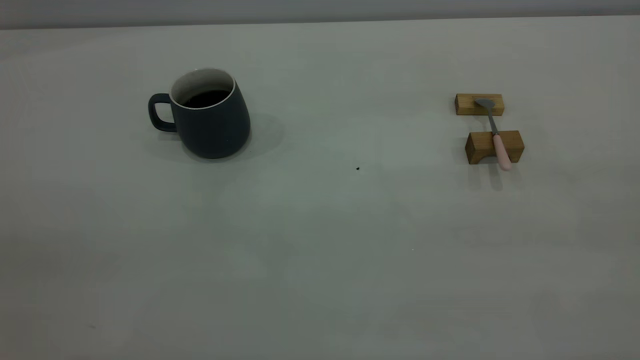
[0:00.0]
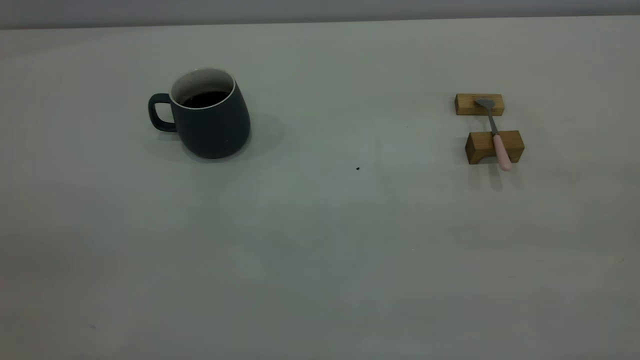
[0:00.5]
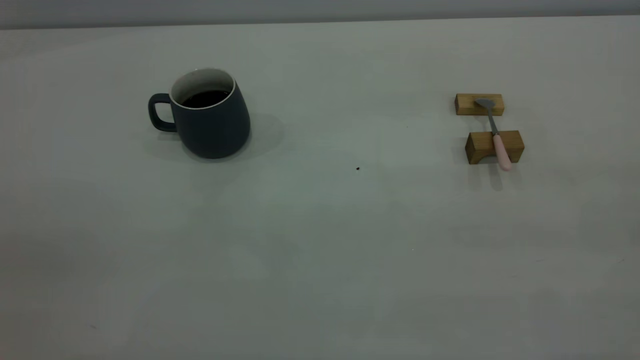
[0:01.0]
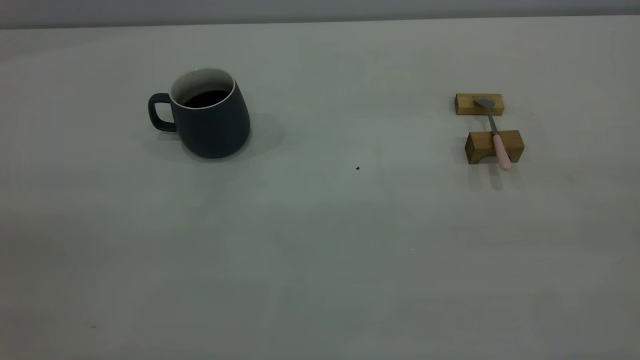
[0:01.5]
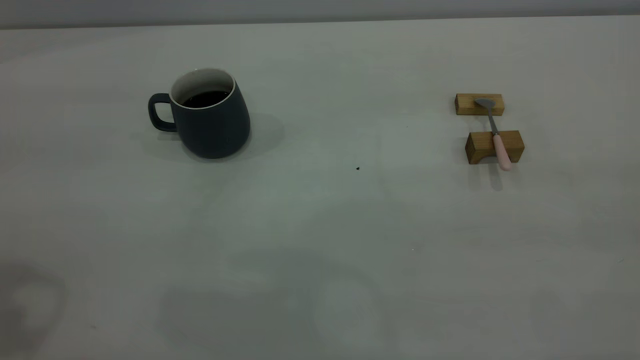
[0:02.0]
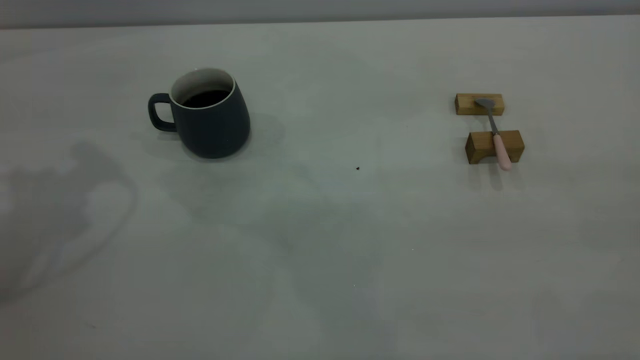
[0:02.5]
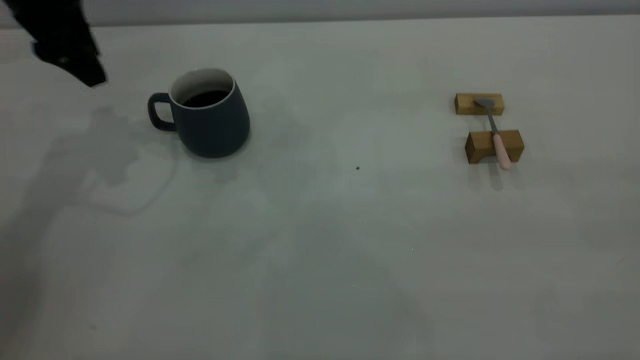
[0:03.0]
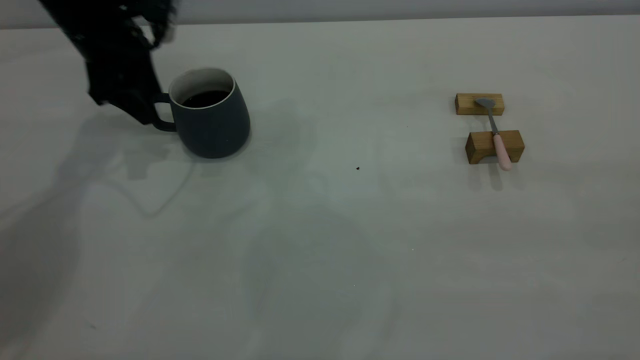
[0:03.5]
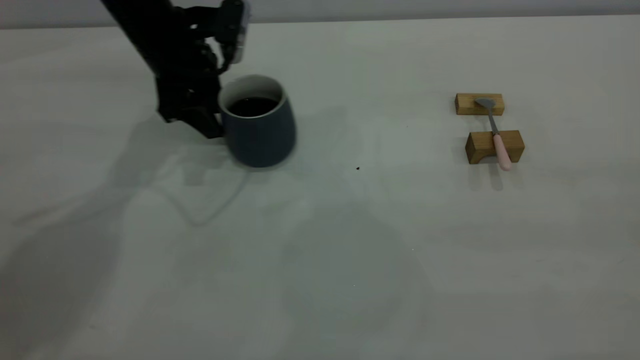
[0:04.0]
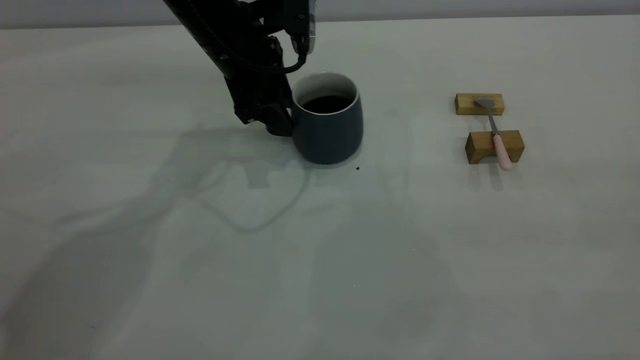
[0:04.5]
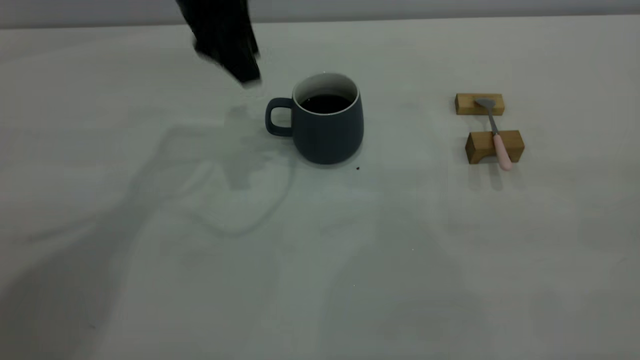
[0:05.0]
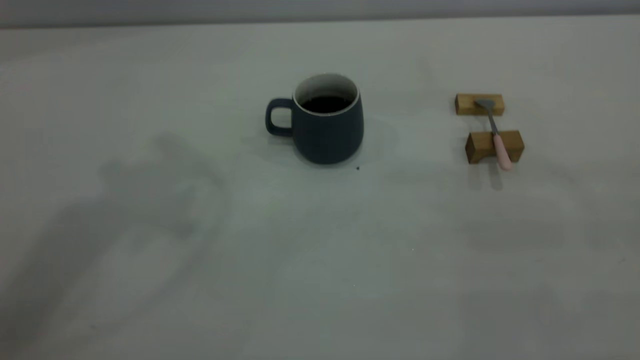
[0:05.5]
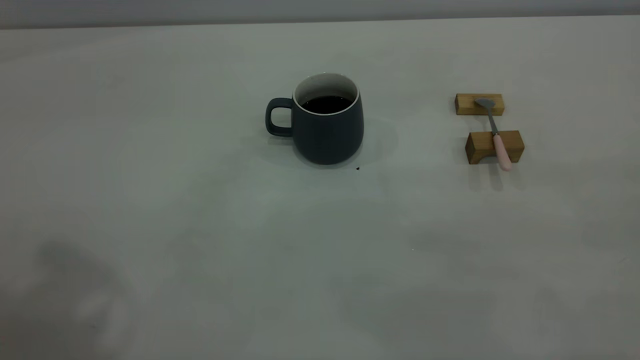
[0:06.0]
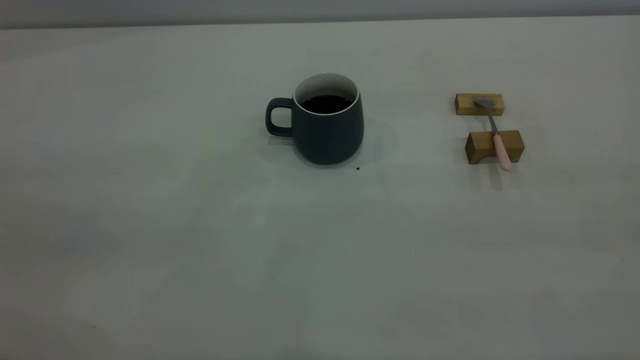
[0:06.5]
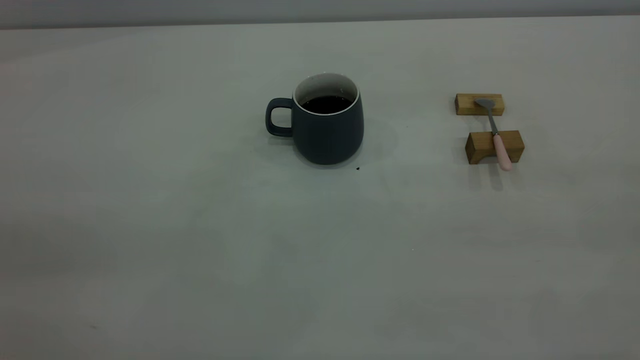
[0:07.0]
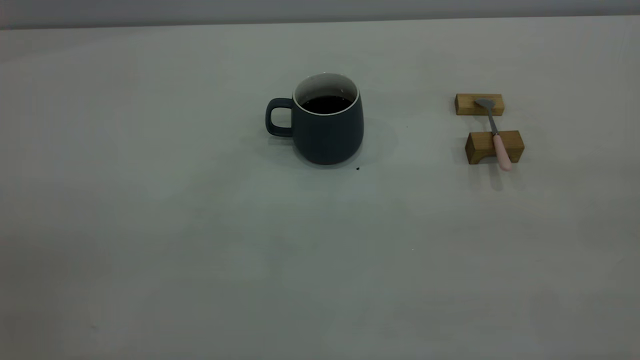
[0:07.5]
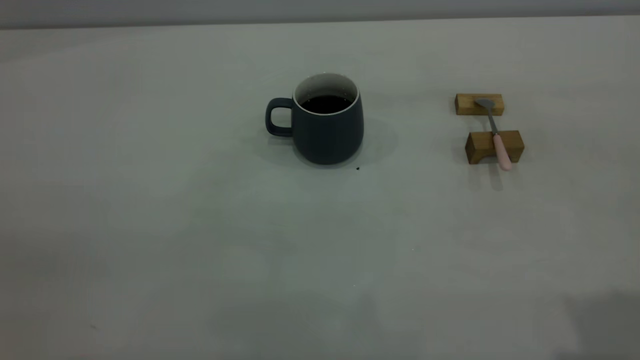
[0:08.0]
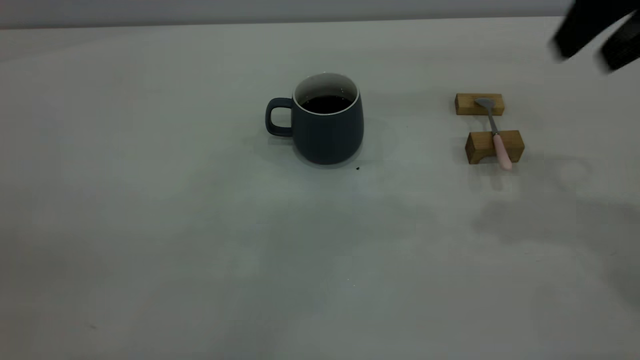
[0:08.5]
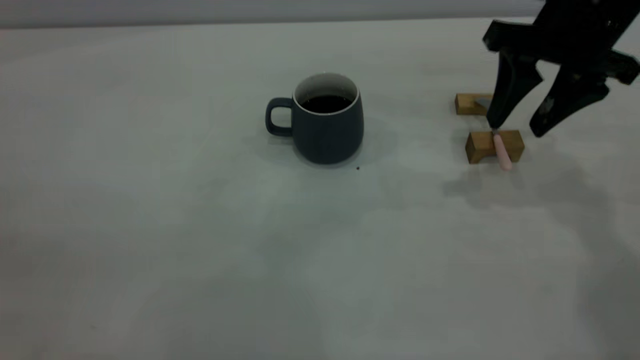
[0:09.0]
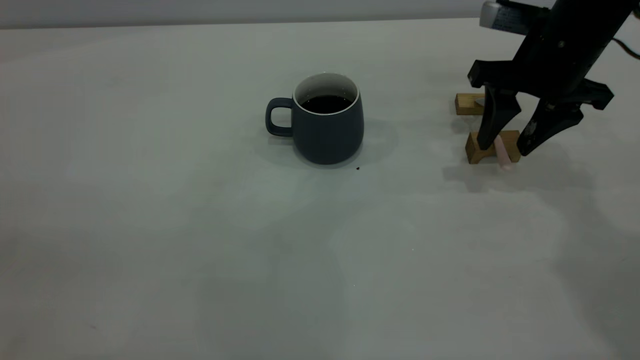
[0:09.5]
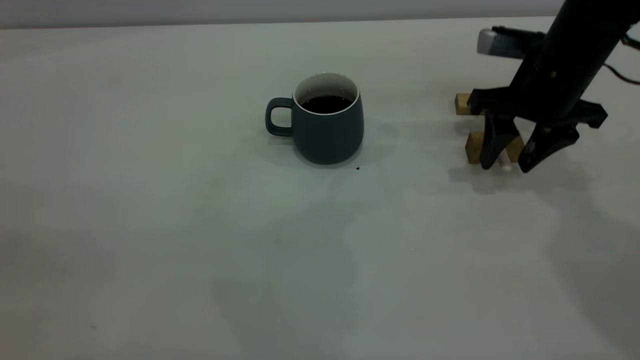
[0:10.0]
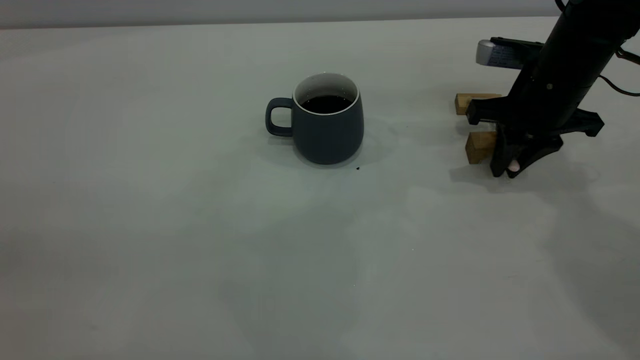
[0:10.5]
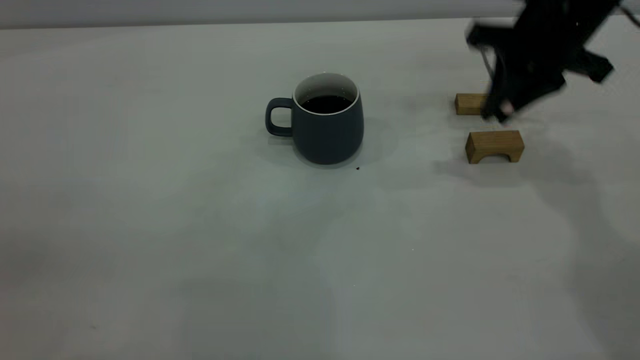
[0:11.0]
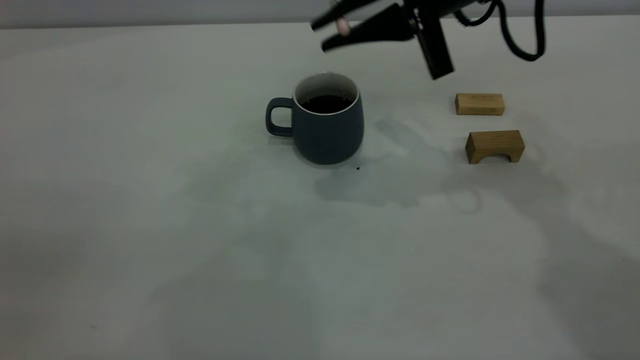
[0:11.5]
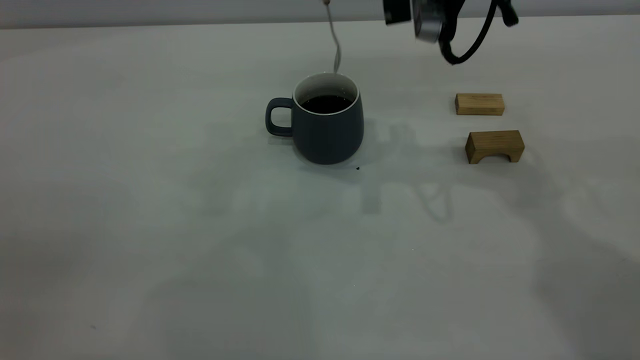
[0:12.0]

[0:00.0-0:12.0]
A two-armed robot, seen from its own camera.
Step, 0:00.0 to 0:04.5: Move the cup with coffee to the center of view.
Step, 0:05.0 to 0:10.5: Pick up the spoon.
0:02.0 to 0:04.0: The left gripper moves forward, downward and to the right, roughly 40 cm.
0:04.0 to 0:06.0: The left gripper heads upward and backward, covering about 40 cm.
0:08.0 to 0:10.0: The right gripper heads downward and forward, covering approximately 35 cm.
0:10.0 to 0:12.0: The right gripper moves upward and to the left, about 15 cm, and closes.

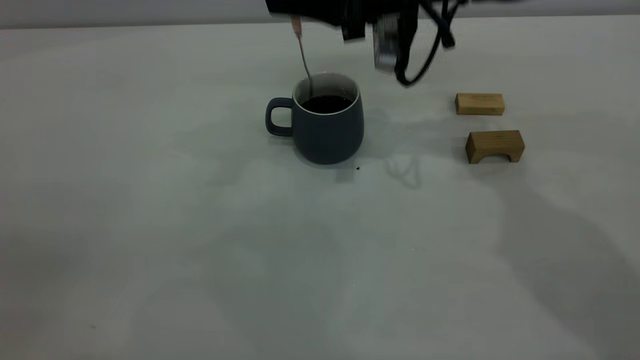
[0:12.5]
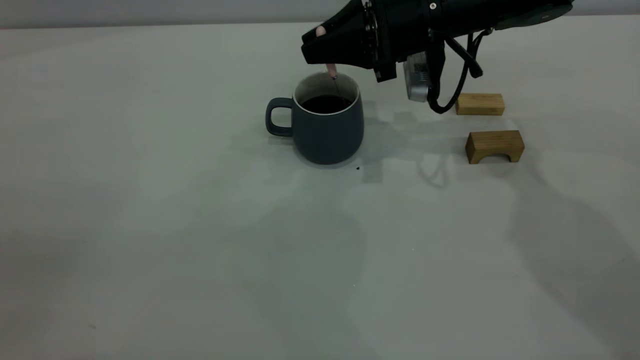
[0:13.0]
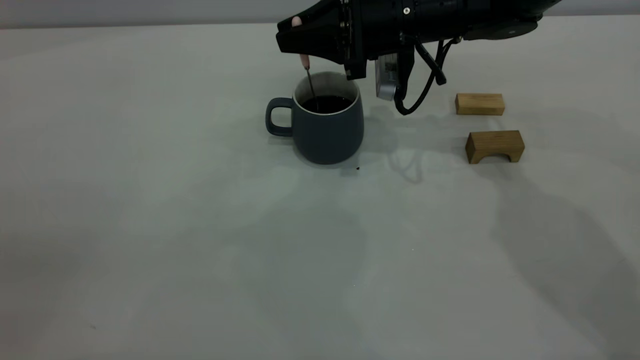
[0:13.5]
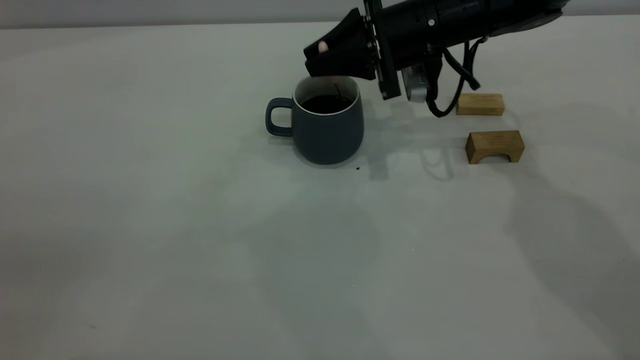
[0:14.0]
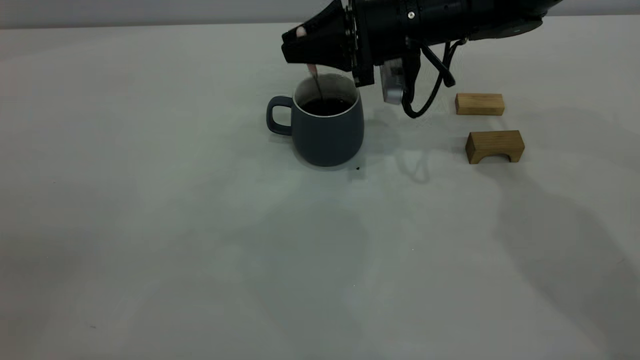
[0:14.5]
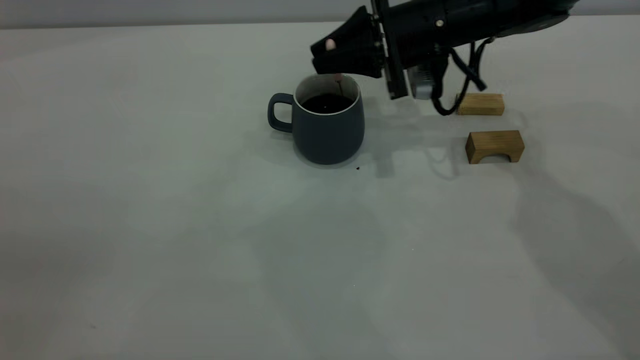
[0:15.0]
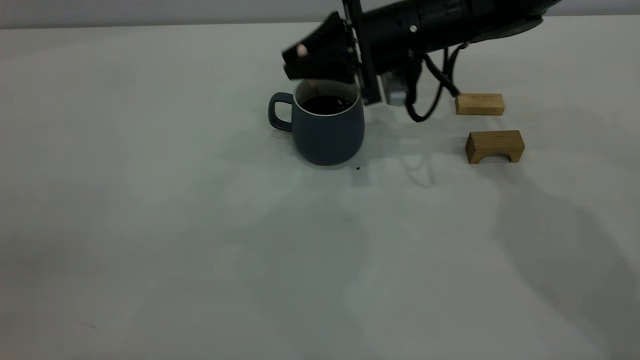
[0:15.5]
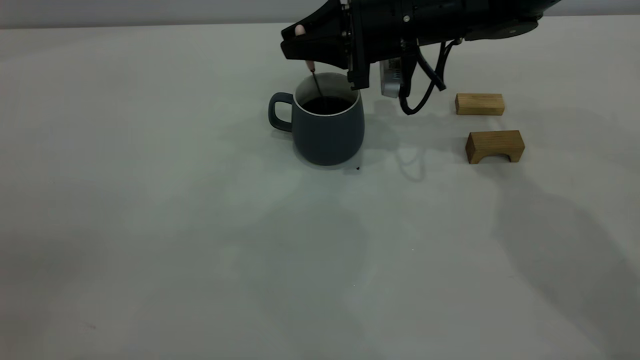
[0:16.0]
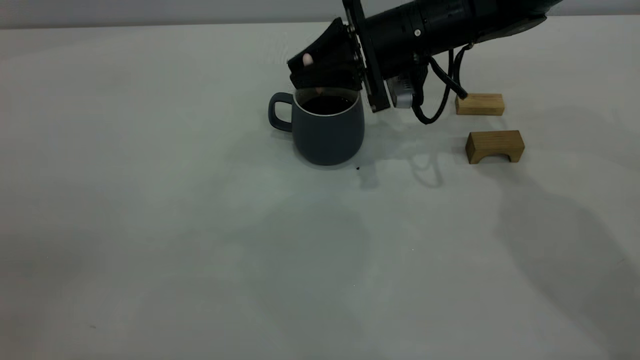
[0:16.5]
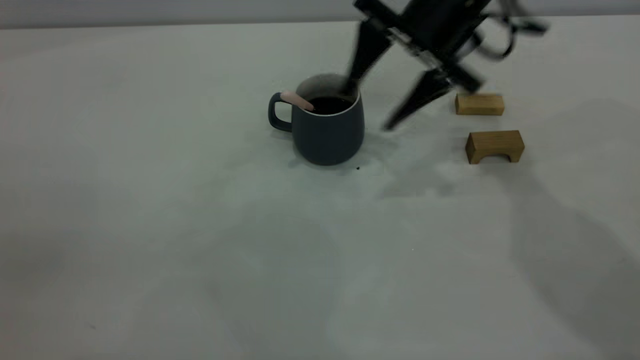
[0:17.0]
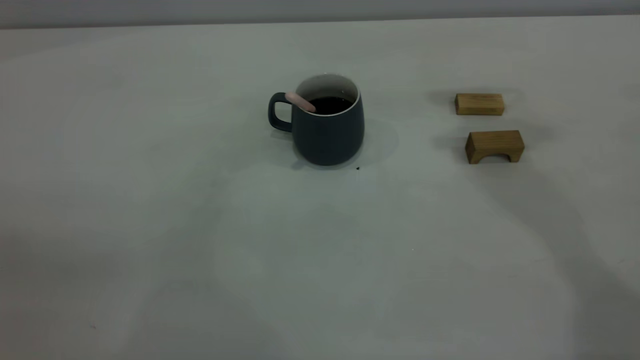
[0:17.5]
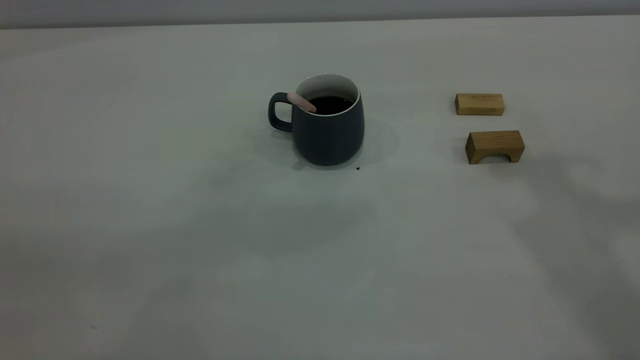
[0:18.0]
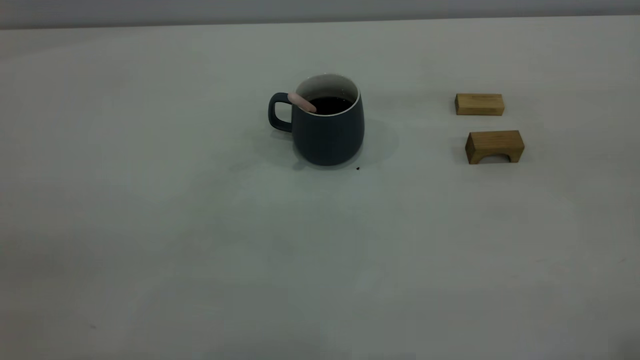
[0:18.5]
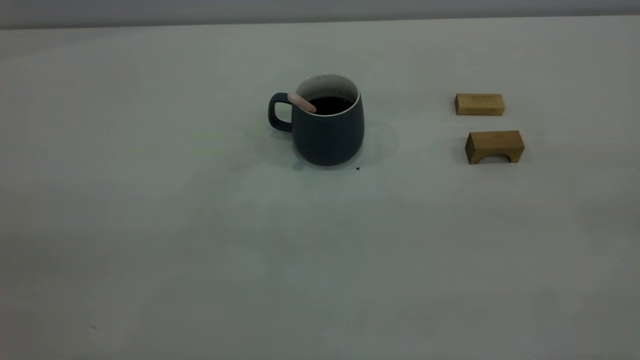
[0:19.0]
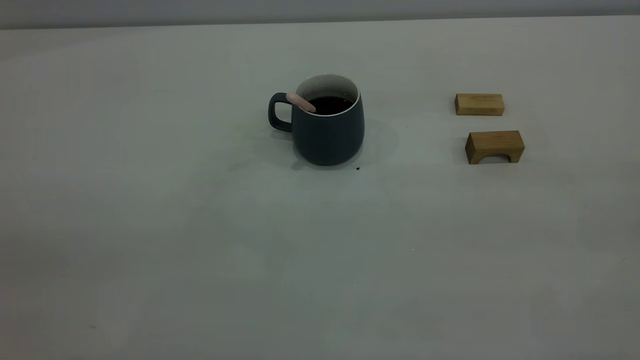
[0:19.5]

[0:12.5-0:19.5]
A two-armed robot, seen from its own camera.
Step, 0:12.5 to 0:16.5: Stir the coffee in the cup.
0:12.5 to 0:14.5: The grippers stay close to where they were, moving slightly.
0:14.5 to 0:16.0: There are only small adjustments of the grippers.
0:16.0 to 0:17.5: The right gripper moves upward and to the right, about 25 cm, and opens up.
